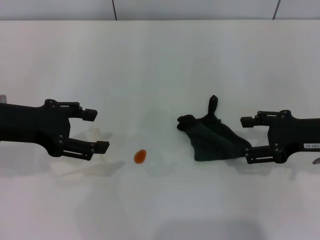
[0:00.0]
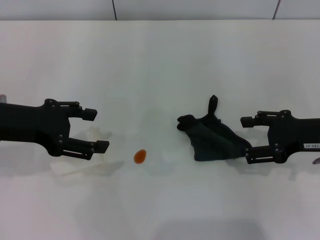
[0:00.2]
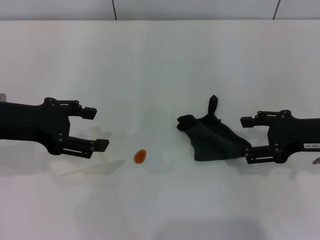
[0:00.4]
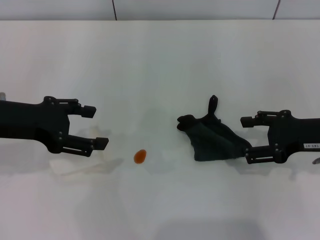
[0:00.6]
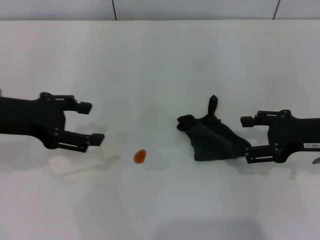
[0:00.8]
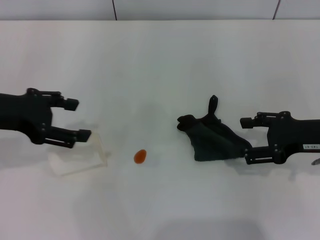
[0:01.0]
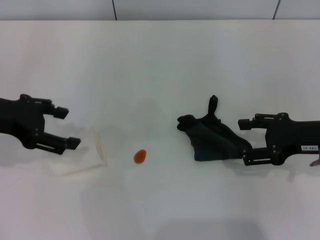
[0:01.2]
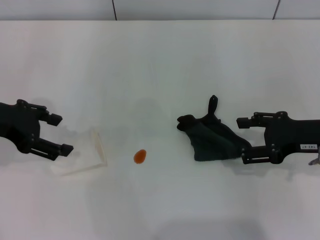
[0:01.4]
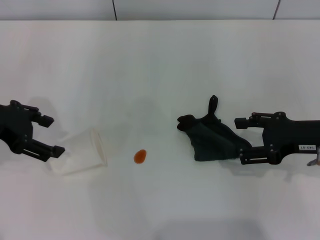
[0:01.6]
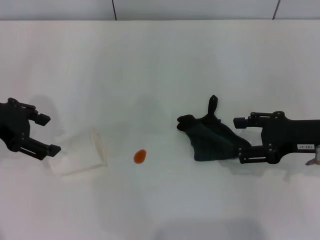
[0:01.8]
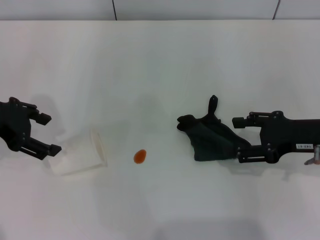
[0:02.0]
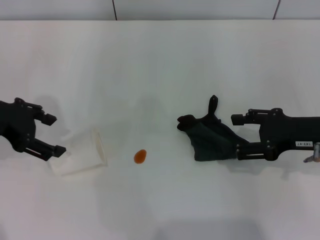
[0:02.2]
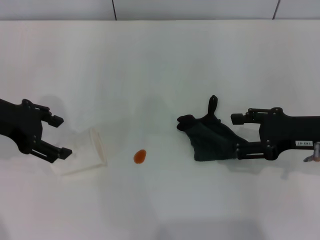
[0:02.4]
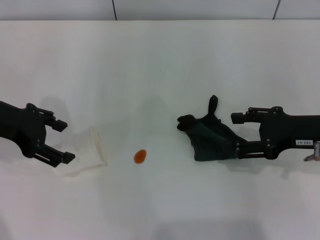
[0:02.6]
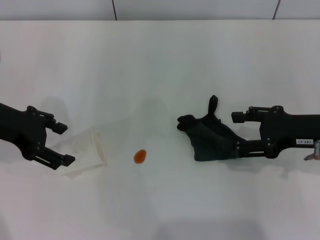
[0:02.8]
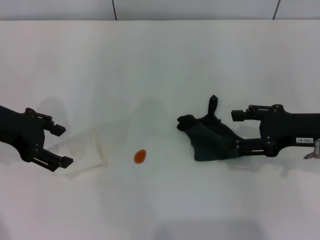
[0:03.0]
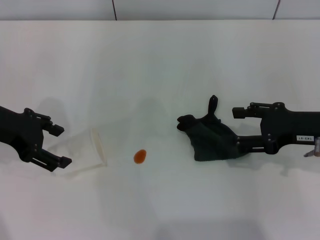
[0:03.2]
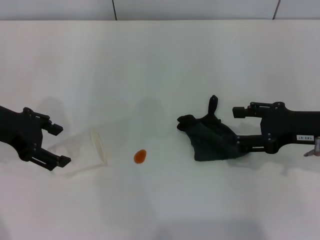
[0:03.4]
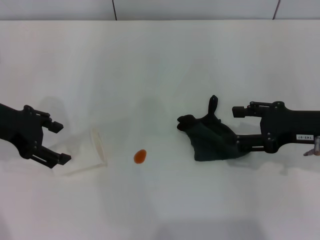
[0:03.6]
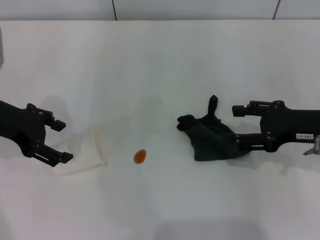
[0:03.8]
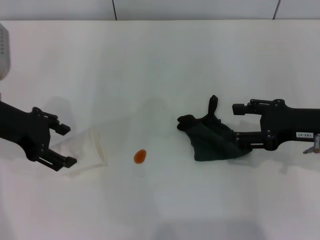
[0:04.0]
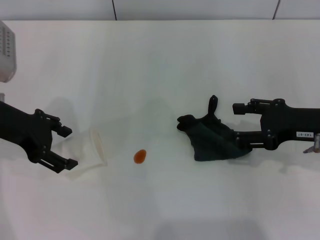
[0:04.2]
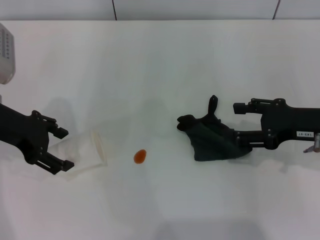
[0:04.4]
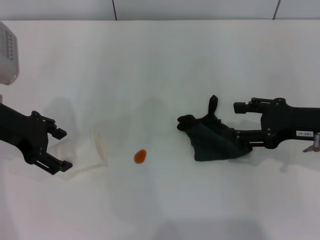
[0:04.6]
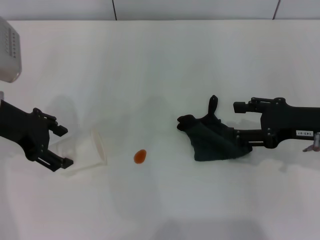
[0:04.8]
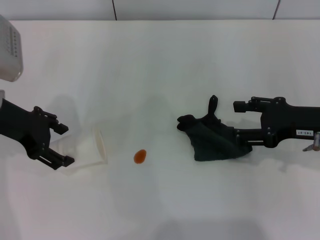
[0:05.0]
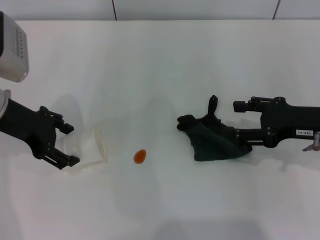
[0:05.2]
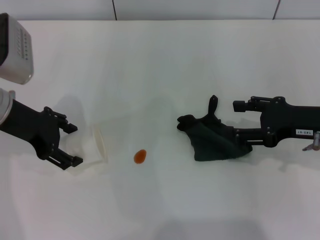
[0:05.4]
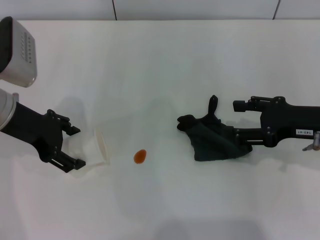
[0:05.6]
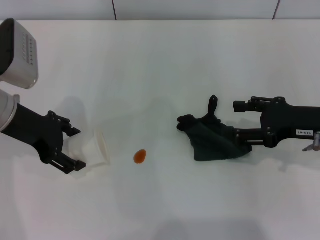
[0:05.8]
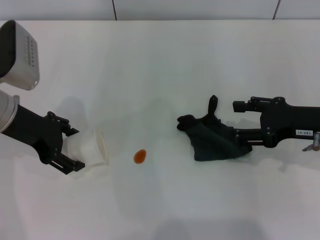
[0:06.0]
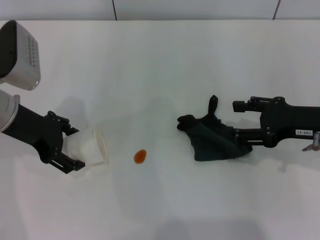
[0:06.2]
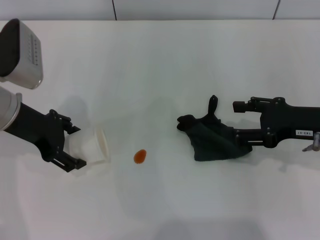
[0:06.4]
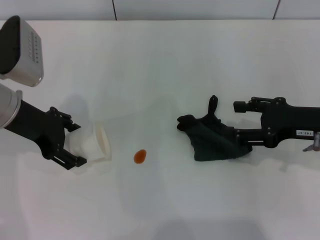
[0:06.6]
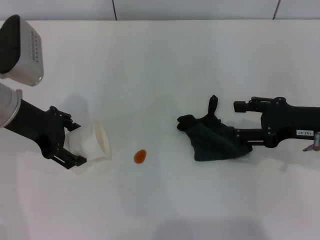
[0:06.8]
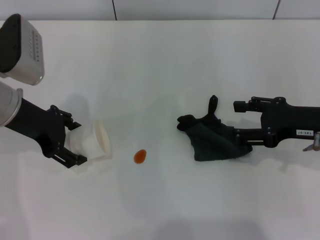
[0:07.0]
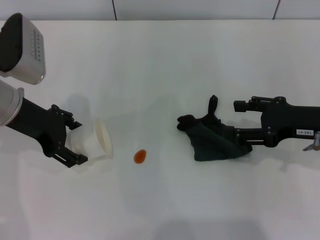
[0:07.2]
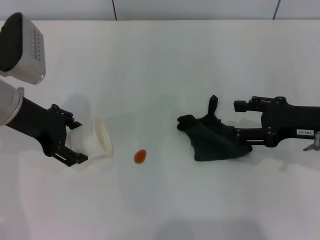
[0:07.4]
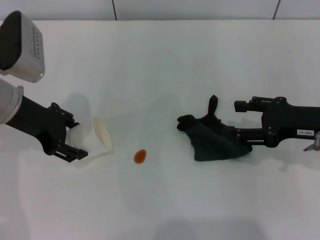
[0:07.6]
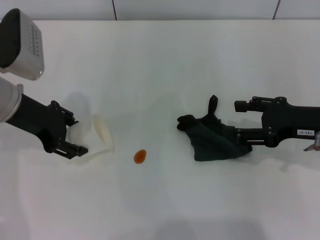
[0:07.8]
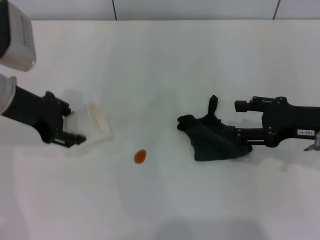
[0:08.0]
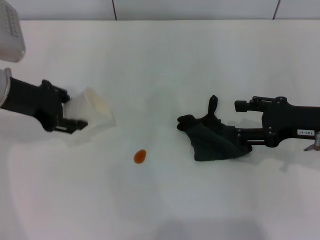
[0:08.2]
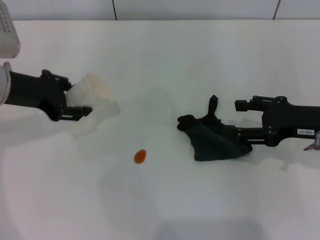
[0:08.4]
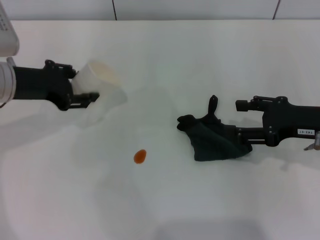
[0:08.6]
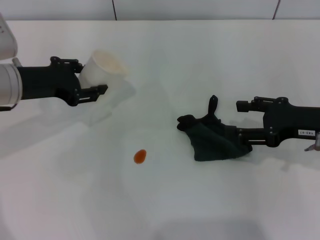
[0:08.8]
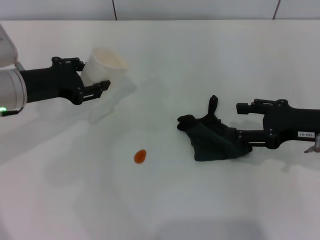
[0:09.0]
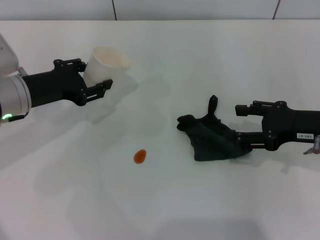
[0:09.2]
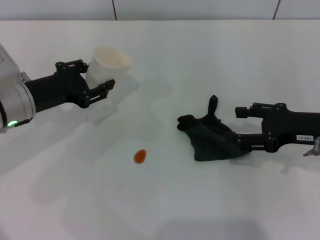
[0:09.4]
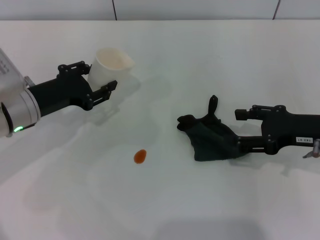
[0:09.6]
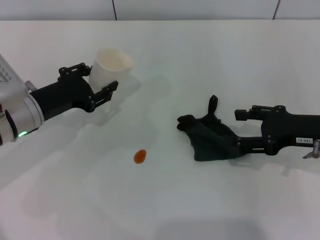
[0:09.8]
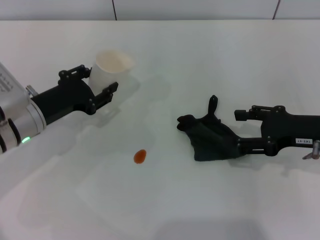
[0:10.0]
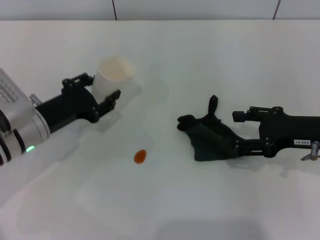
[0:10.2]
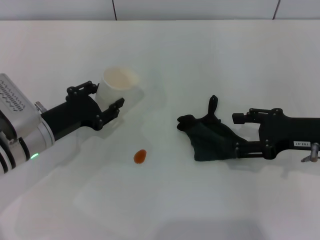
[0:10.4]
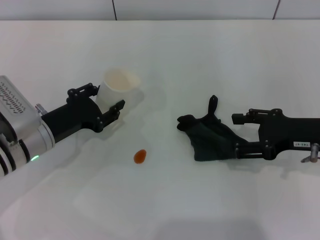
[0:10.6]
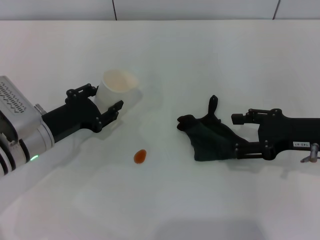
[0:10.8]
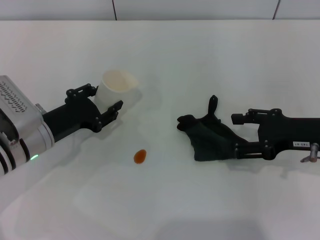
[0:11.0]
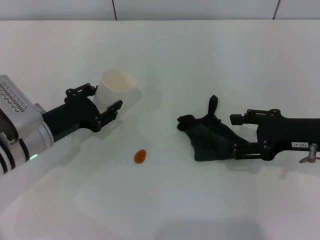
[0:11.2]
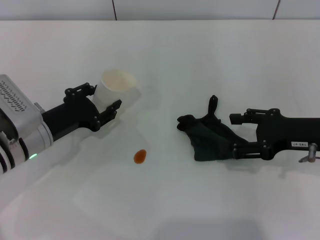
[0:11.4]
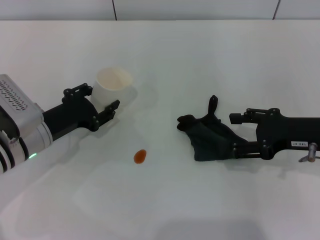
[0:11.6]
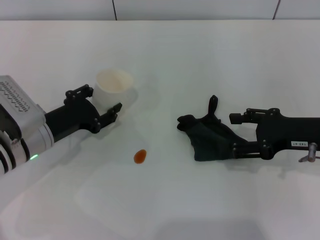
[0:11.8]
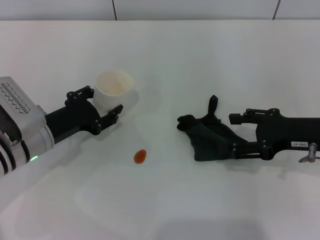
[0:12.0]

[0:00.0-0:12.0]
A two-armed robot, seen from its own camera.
Step, 0:00.0 to 0:07.0: Grasp the paper cup with the left gripper.
0:01.6 to 0:06.0: The grippers make only small movements.
0:06.0 to 0:07.6: Neither gripper changes place.
0:07.6 to 0:09.0: The left gripper closes up.
0:09.0 to 0:10.4: The left gripper heads downward, covering about 10 cm.
0:10.4 to 0:12.0: Both grippers stay put.

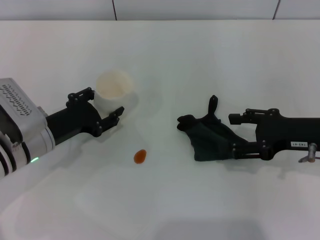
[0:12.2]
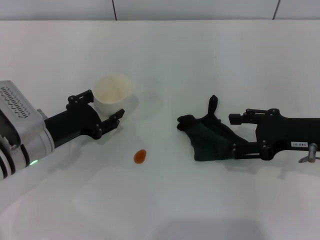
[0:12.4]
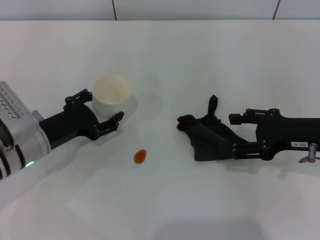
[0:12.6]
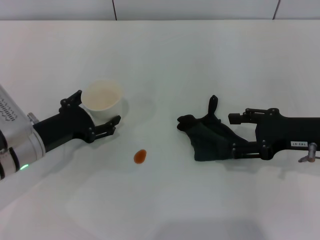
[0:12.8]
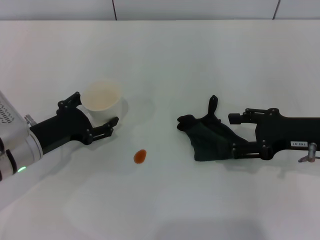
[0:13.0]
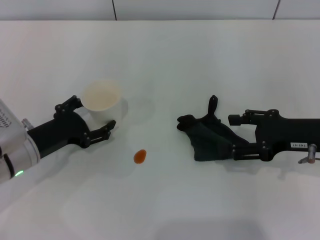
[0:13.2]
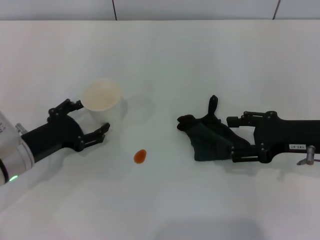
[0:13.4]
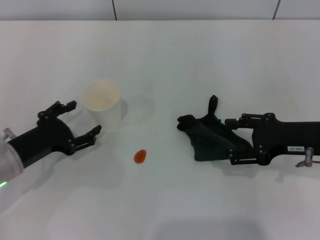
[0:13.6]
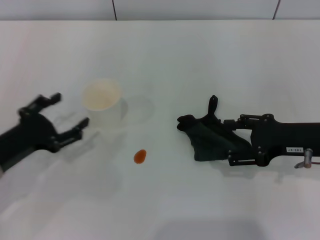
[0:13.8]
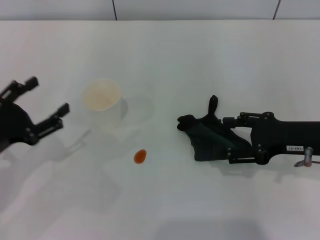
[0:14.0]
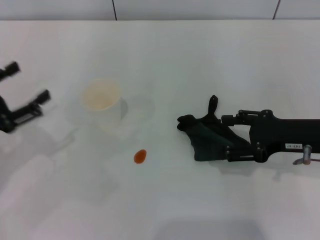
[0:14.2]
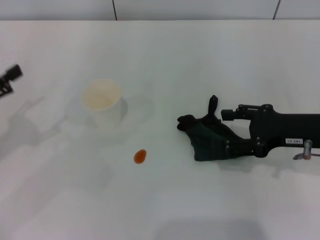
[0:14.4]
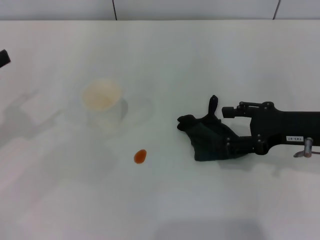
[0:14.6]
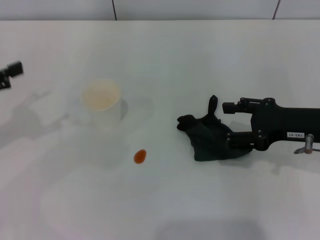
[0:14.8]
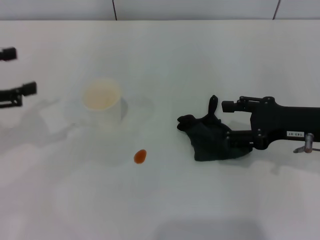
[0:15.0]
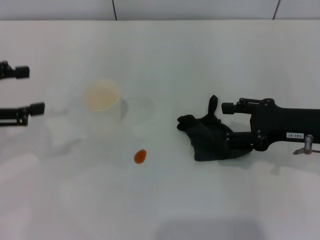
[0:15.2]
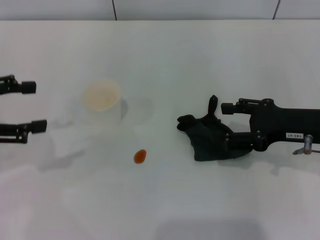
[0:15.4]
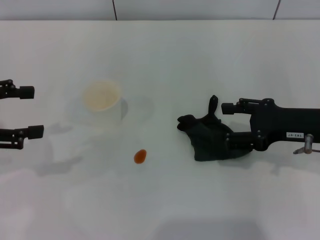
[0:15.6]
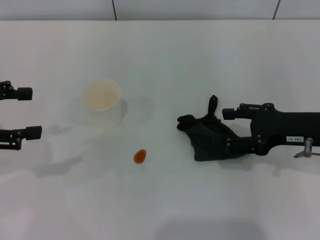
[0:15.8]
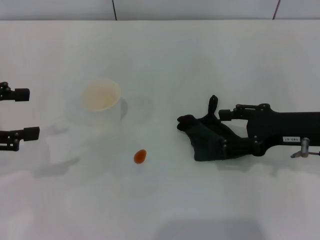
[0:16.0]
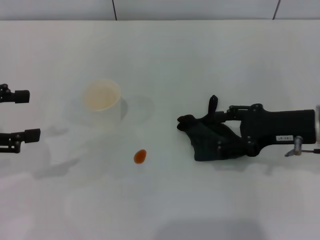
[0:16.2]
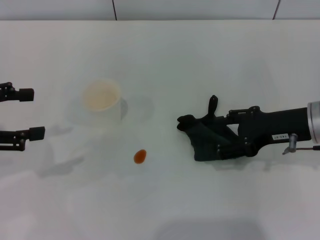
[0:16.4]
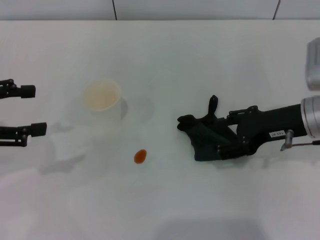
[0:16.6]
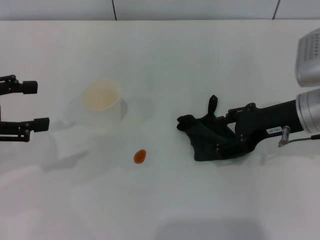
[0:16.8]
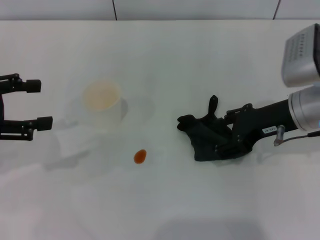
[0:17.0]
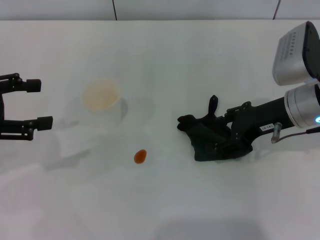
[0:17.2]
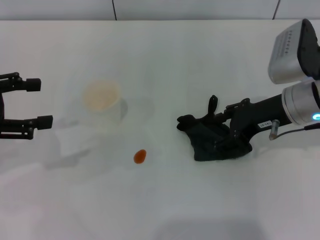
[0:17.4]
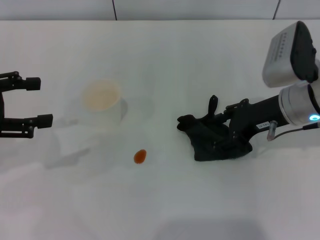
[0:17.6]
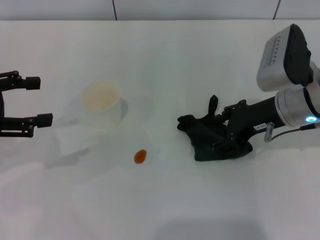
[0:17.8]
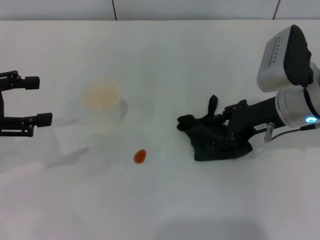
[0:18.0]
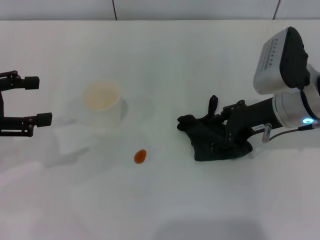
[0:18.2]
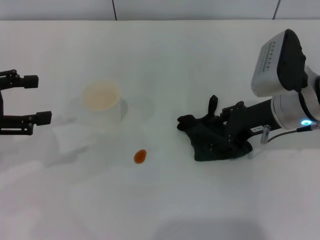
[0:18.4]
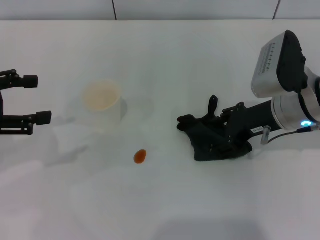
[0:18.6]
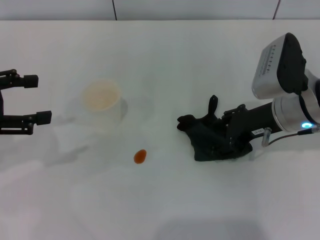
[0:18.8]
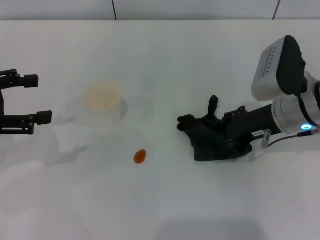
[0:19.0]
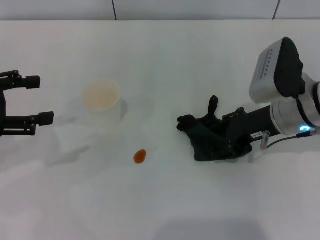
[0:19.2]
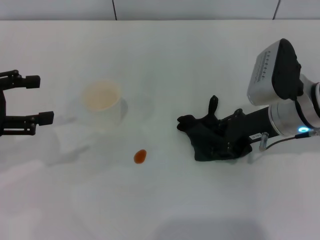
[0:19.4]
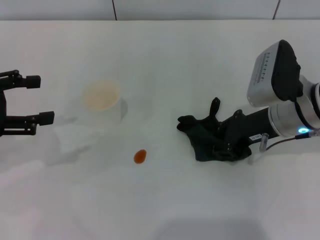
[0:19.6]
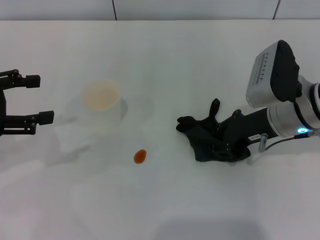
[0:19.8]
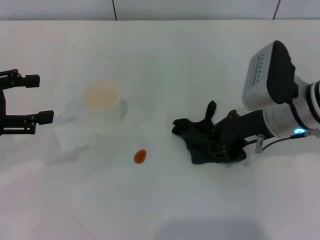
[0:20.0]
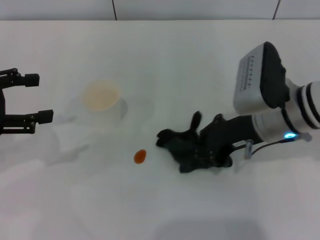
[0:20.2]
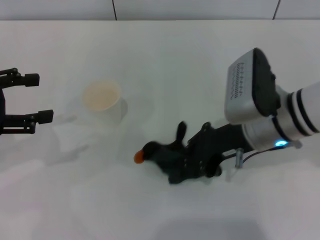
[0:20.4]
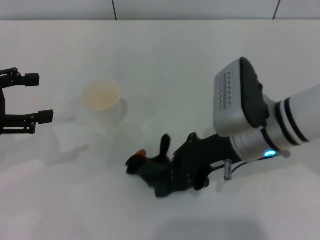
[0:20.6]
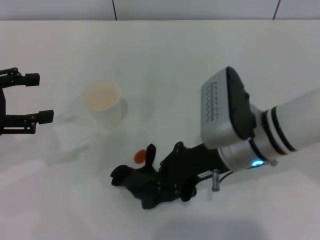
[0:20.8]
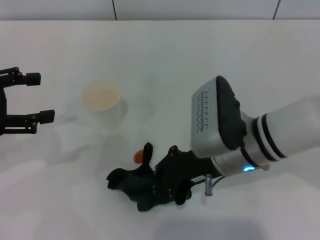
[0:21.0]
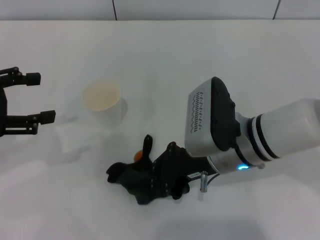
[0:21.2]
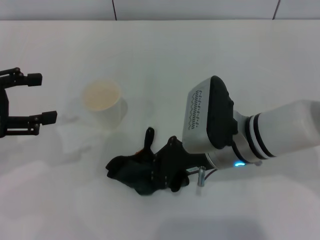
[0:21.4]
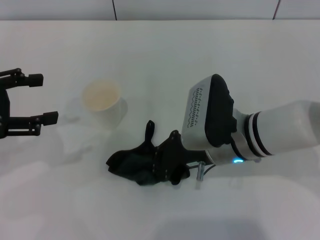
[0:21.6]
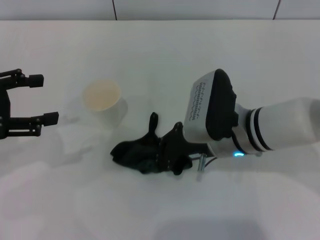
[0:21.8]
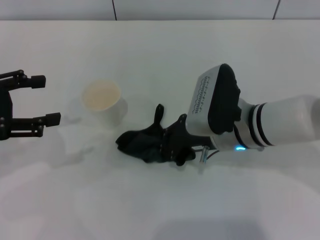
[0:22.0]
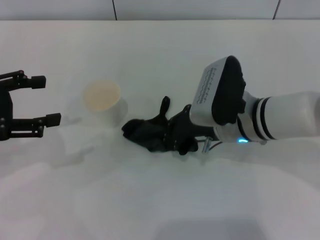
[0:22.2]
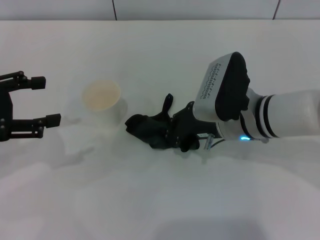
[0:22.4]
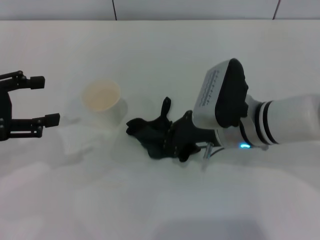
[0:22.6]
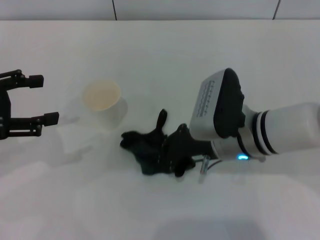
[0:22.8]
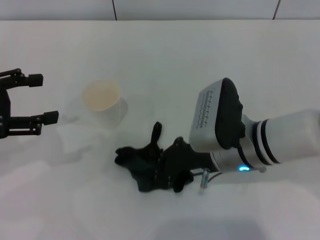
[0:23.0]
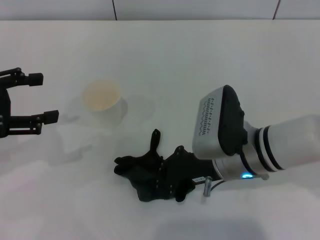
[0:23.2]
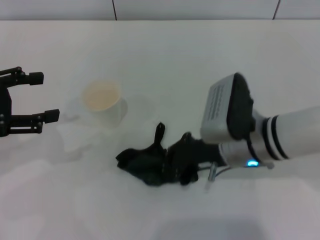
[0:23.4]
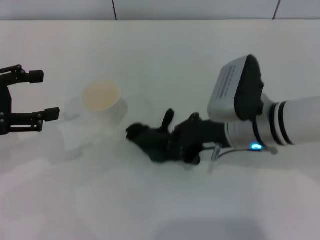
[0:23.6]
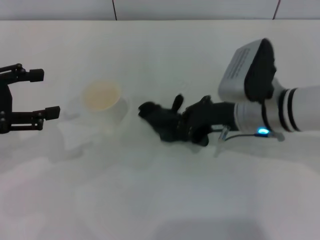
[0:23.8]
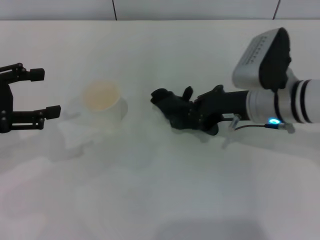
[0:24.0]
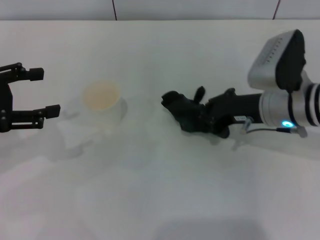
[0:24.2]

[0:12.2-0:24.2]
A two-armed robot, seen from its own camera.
Step, 0:13.8 to 0:19.6: Grasp the rag with the right gripper.
0:12.2 to 0:13.8: The left gripper heads backward and to the left, covering some 10 cm, and opens up.
0:13.8 to 0:15.2: The left gripper is displaced upward and to the left by some 15 cm.
0:15.2 to 0:16.6: The grippers make only small movements.
0:16.6 to 0:18.2: There are only small adjustments of the grippers.
0:18.2 to 0:19.8: The right gripper closes its fingers.
0:19.8 to 0:21.2: The right gripper travels to the left by some 10 cm.
0:21.2 to 0:22.6: The grippers make only small movements.
0:22.6 to 0:24.2: The right gripper goes approximately 5 cm to the right.
